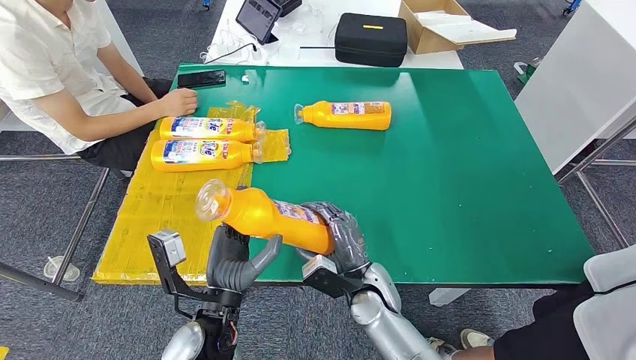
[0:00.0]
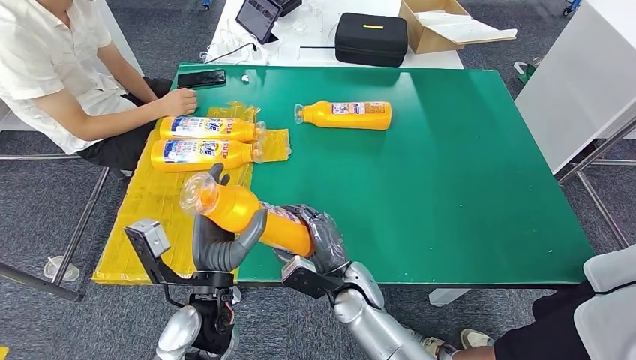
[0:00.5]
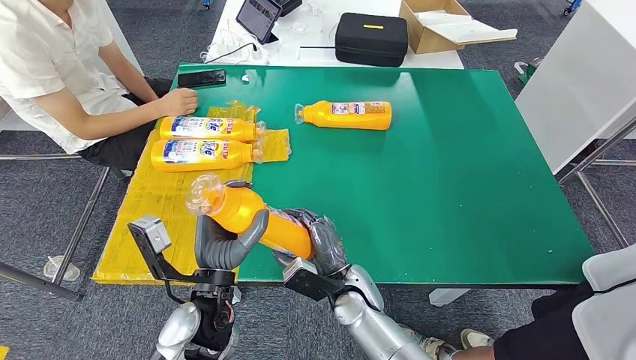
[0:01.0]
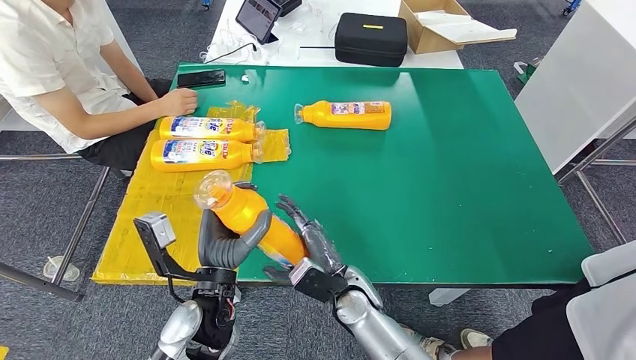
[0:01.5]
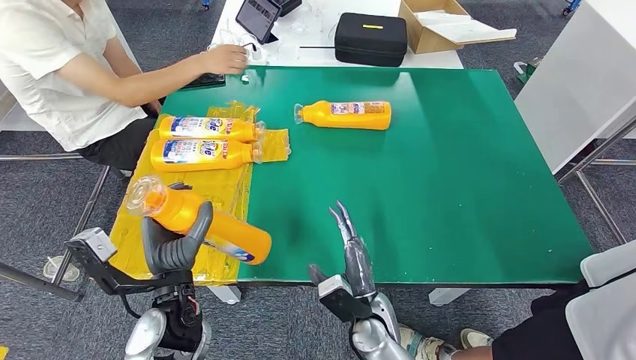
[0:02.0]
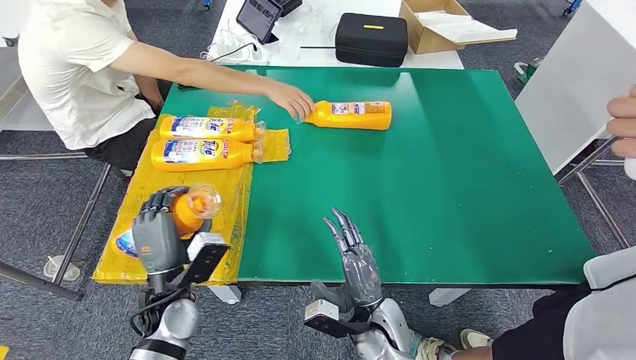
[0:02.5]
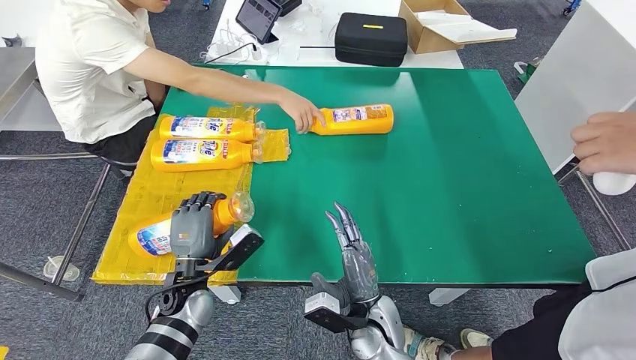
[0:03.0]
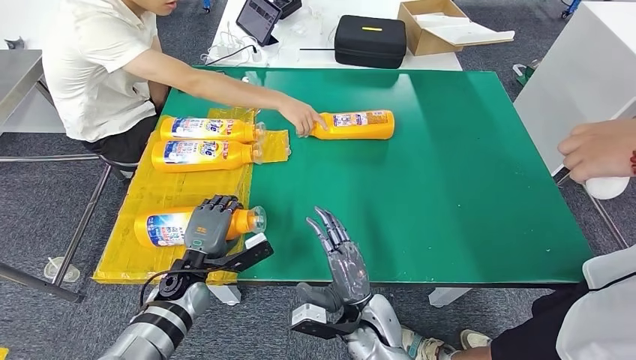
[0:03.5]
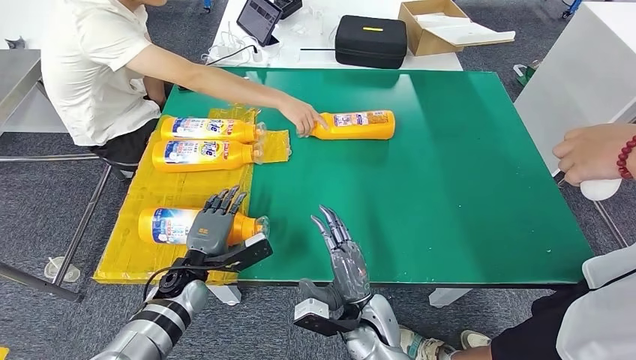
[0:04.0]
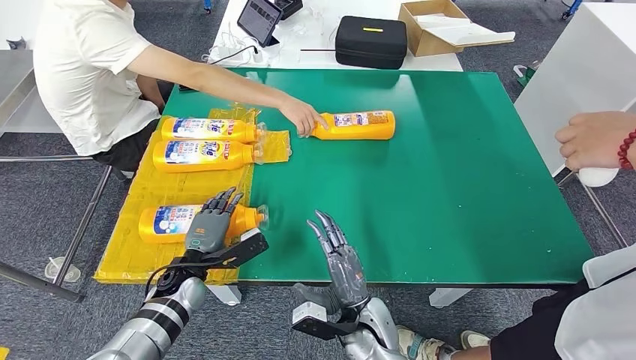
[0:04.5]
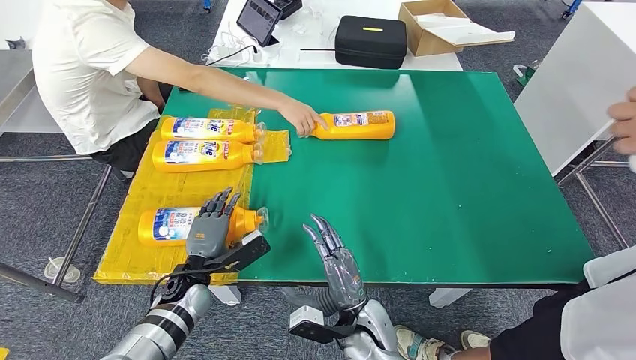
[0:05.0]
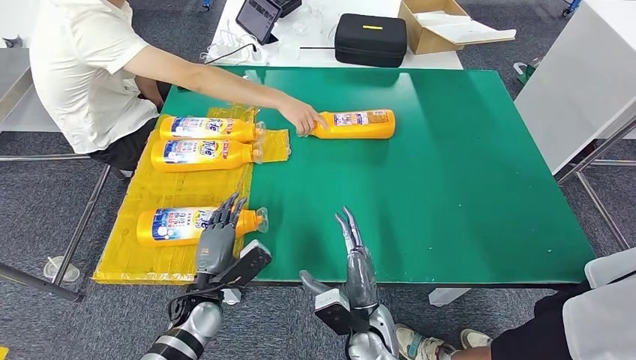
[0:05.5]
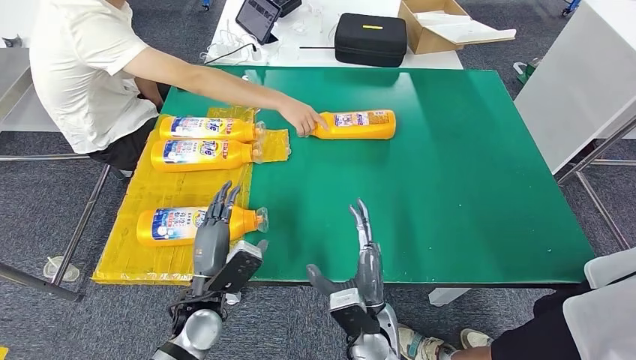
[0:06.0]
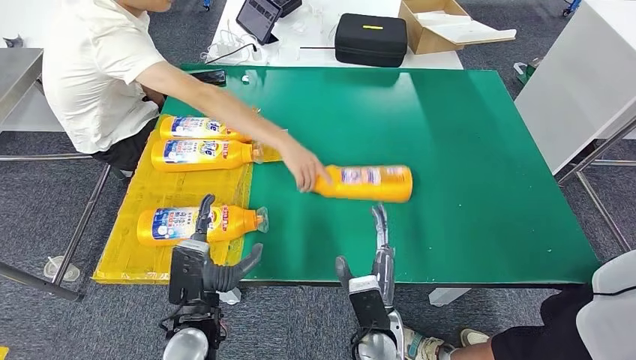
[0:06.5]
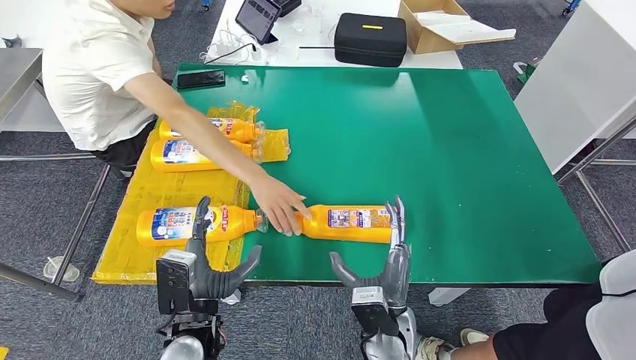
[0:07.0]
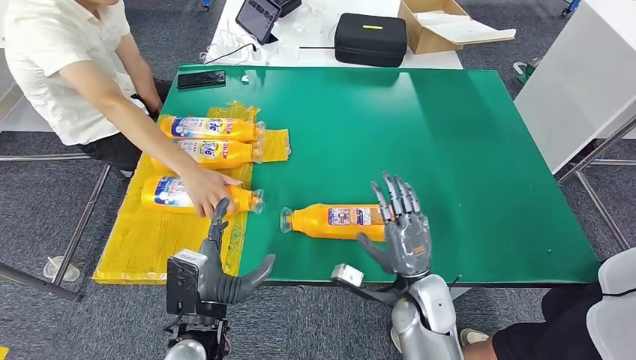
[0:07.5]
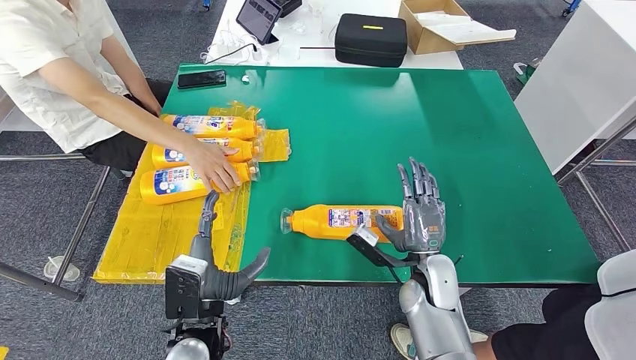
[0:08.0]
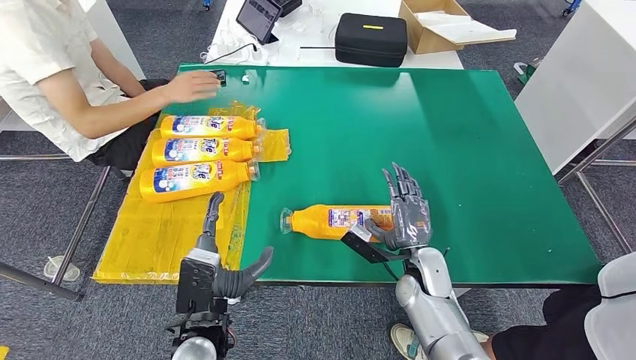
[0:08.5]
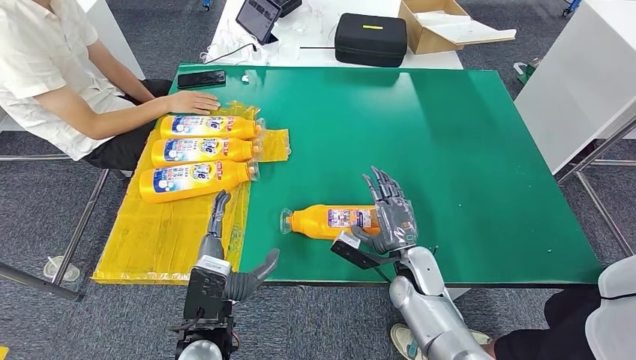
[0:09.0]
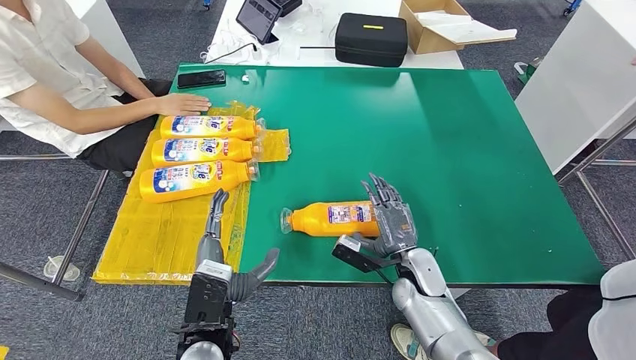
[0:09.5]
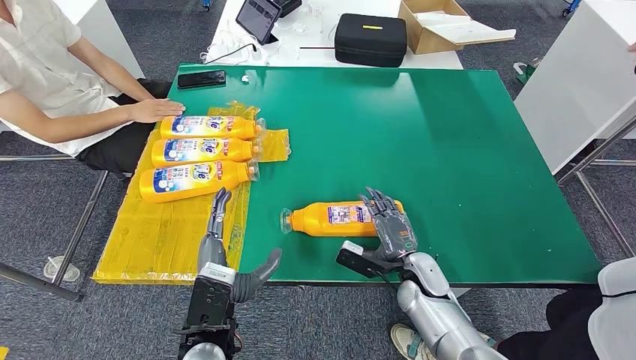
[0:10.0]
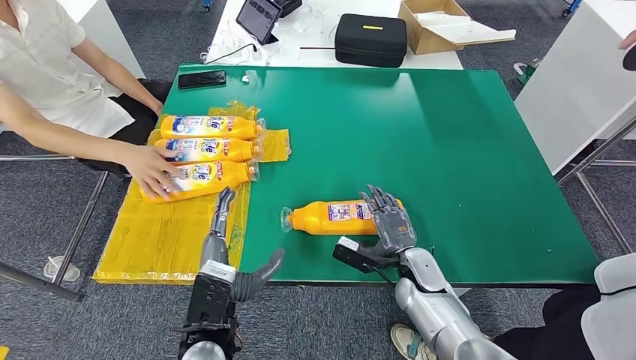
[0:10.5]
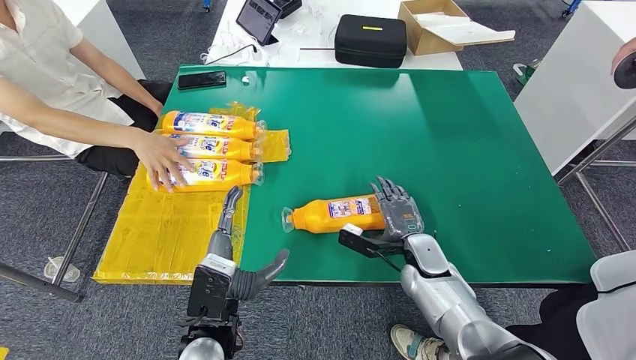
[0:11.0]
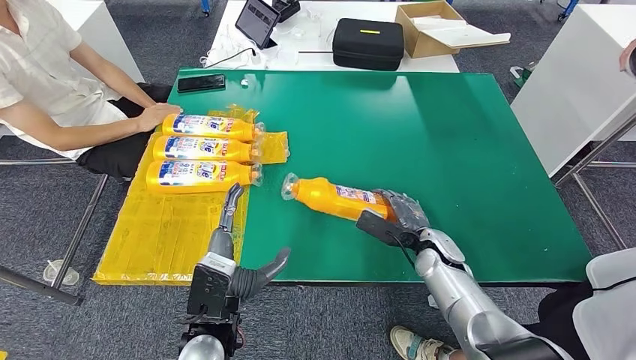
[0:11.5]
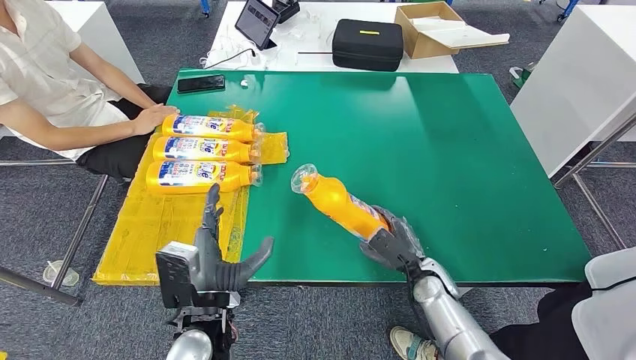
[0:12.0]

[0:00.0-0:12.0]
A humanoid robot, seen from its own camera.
Step, 0:00.0 to 0:05.5: Flip the fast-moving consumer goods bottle to the front side.
0:00.0 to 0:02.0: The left hand shifts by about 5 cm. Meanwhile the right hand shifts by approximately 5 cm.
0:04.0 to 0:06.0: The left hand goes roughly 10 cm backward and to the right.
0:08.0 to 0:10.0: The right hand shifts roughly 5 cm downward.

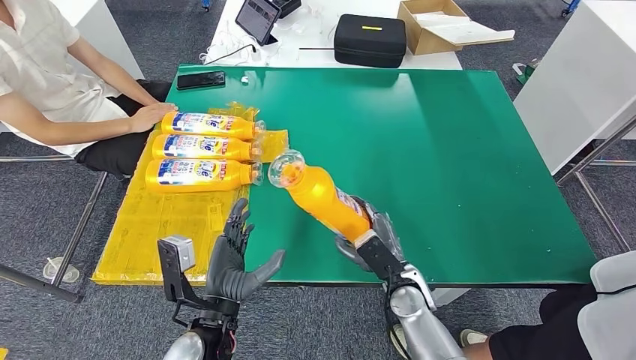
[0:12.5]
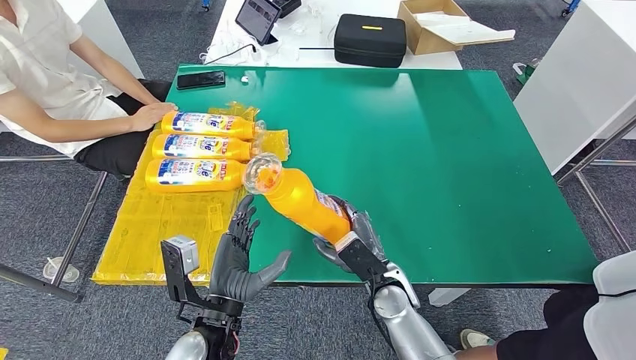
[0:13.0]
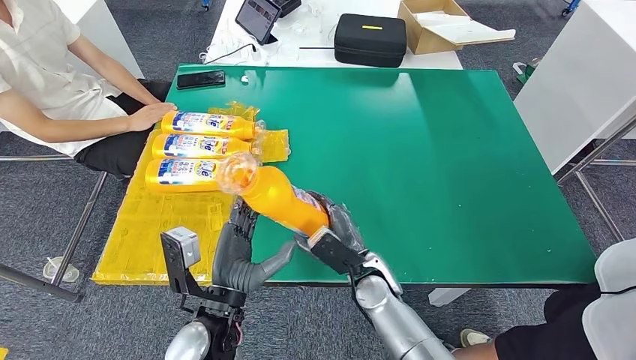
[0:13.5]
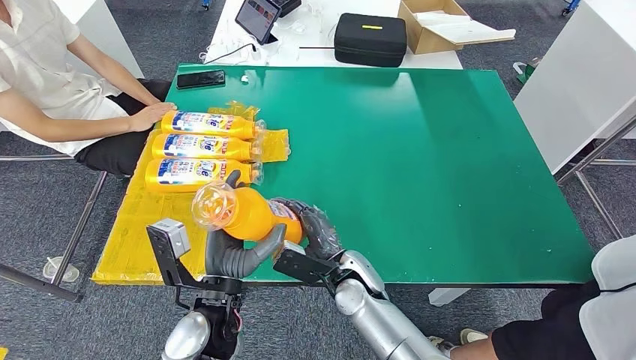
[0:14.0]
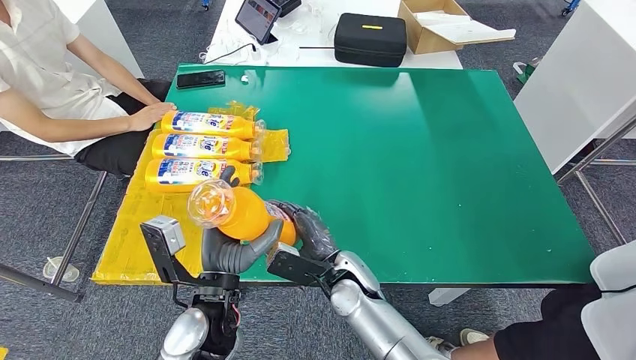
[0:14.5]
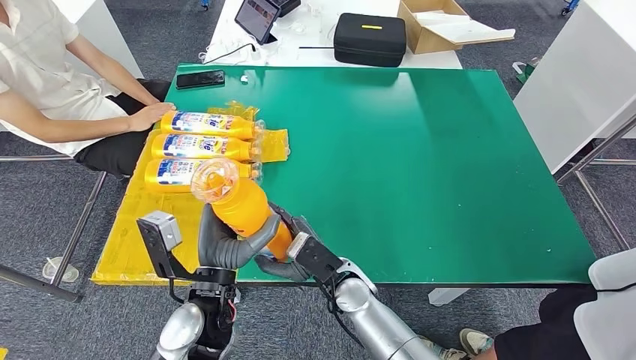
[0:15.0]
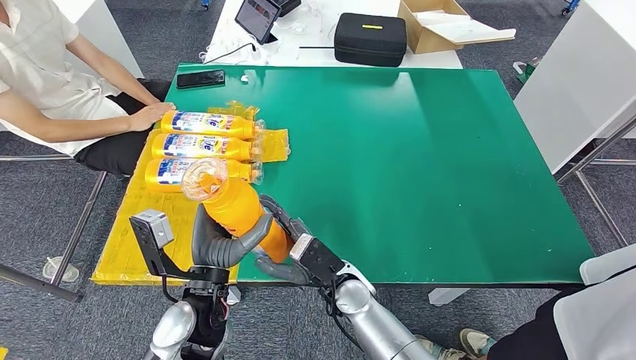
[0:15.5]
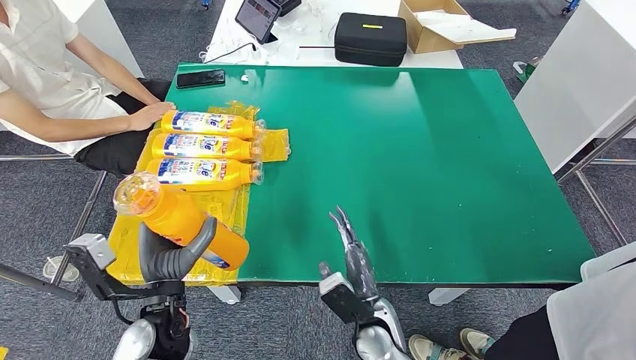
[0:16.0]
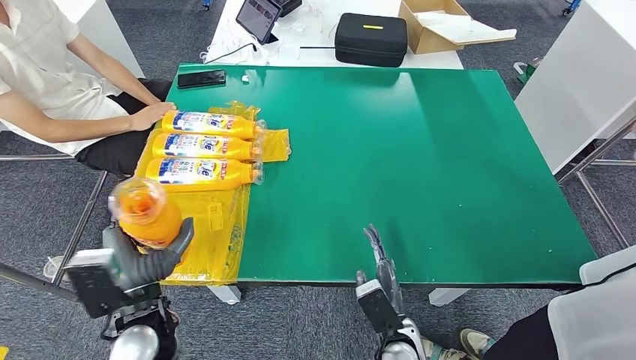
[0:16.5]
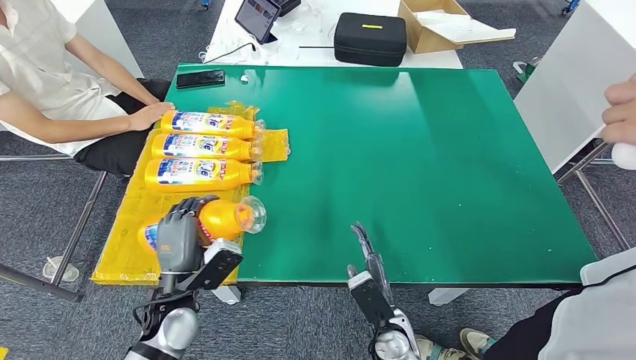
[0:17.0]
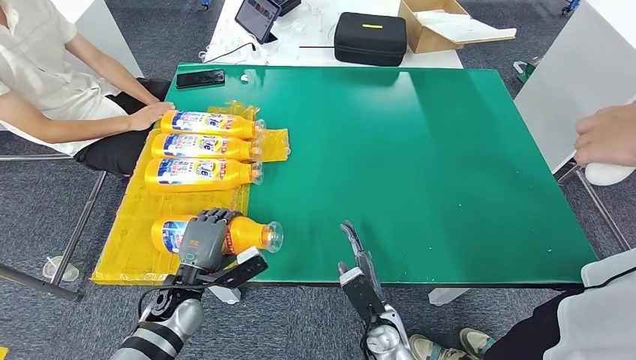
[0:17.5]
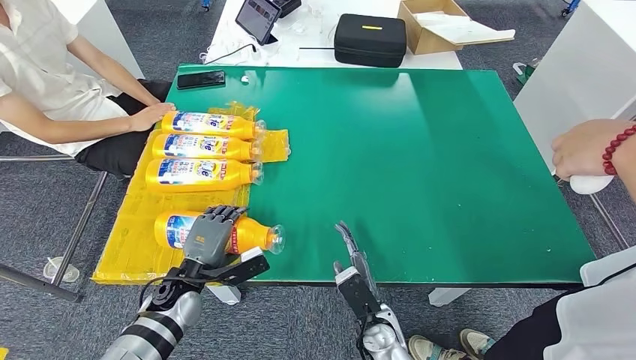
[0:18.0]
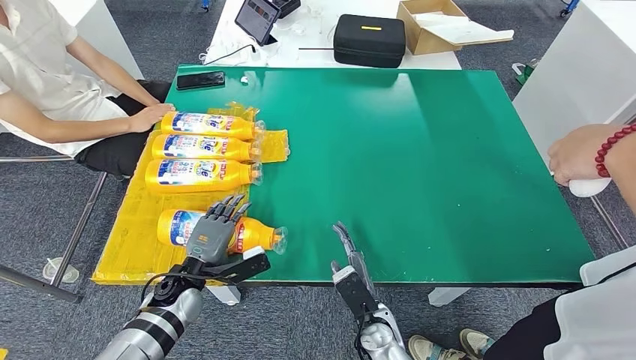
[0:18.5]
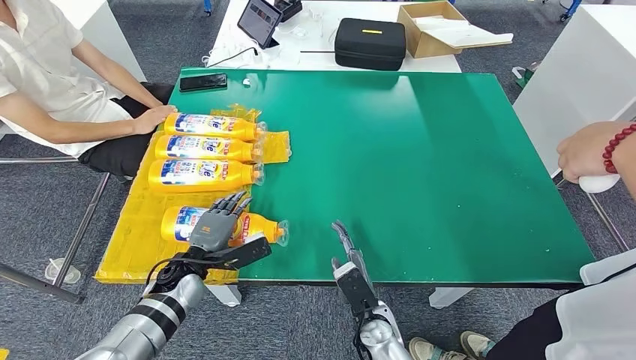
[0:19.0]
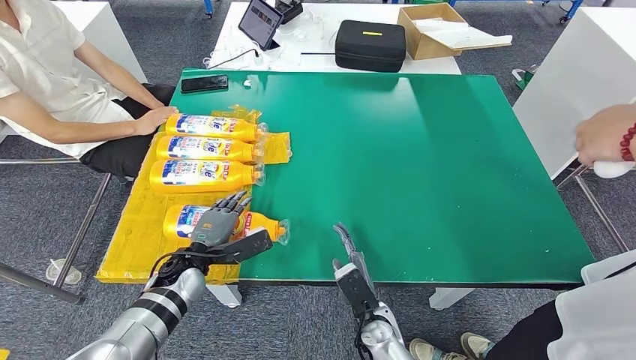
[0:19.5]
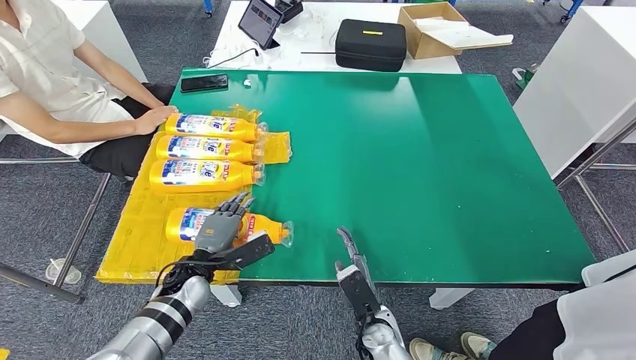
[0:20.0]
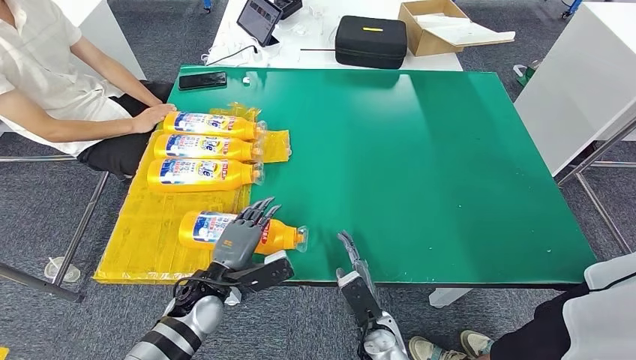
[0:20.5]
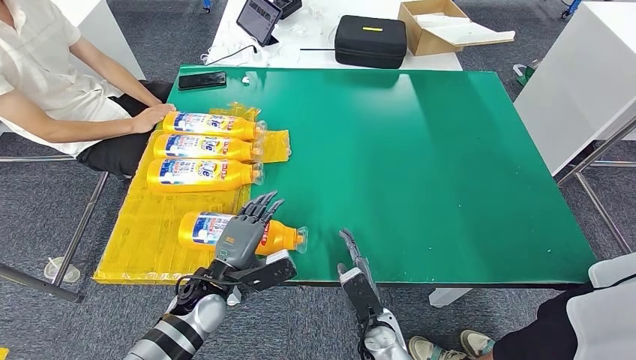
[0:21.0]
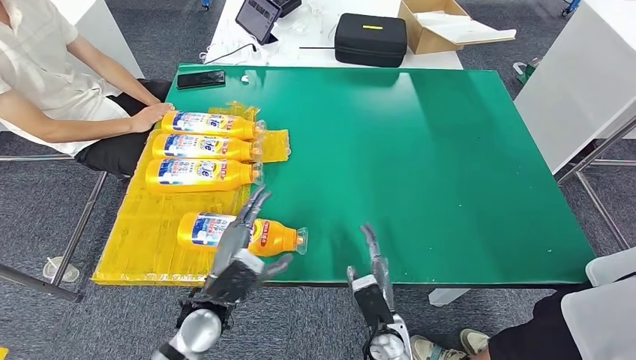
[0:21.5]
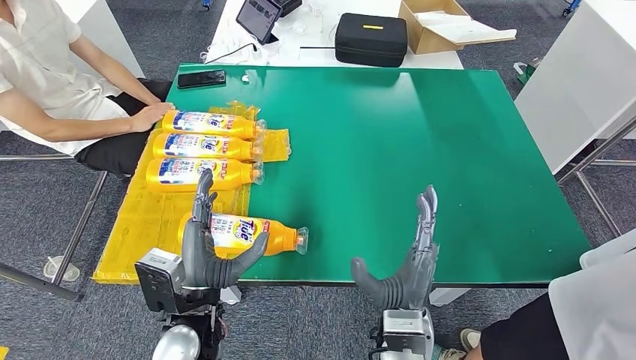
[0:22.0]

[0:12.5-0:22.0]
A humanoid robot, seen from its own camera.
Step, 0:13.0 to 0:22.0: Flip the fast-moving consumer goods bottle to the front side.
0:12.5 to 0:14.5: The right hand moves to the left, some 10 cm.
0:14.5 to 0:16.5: The left hand shifts some 10 cm to the left. Meanwhile the right hand is displaced backward, to the right and downward by roughly 15 cm.
0:16.5 to 0:18.0: The left hand goes some 10 cm downward and forward.
0:18.0 to 0:20.0: The hands move only a little.
